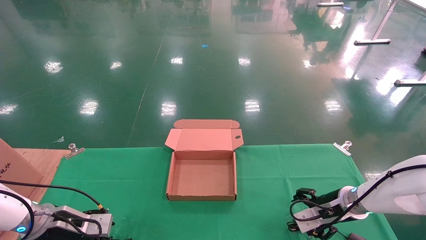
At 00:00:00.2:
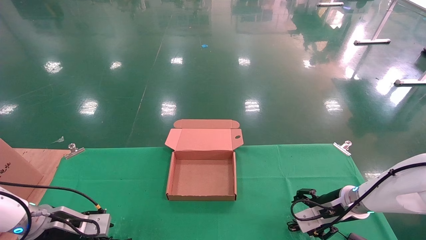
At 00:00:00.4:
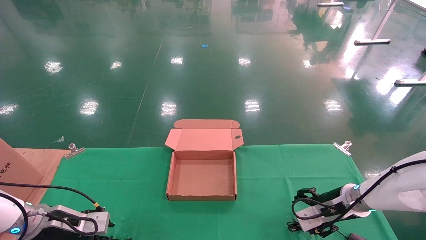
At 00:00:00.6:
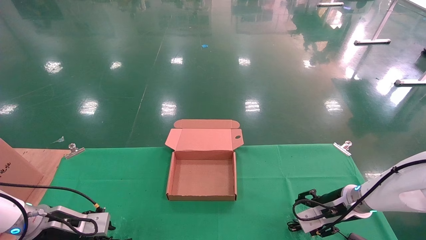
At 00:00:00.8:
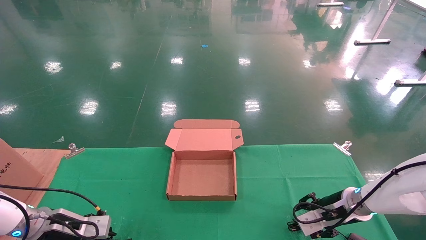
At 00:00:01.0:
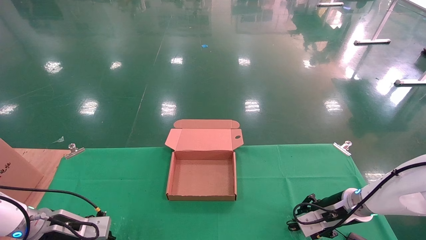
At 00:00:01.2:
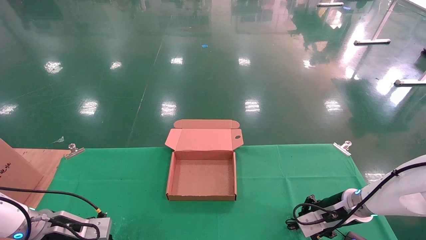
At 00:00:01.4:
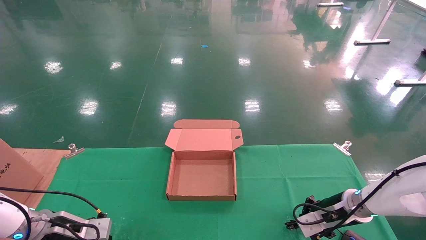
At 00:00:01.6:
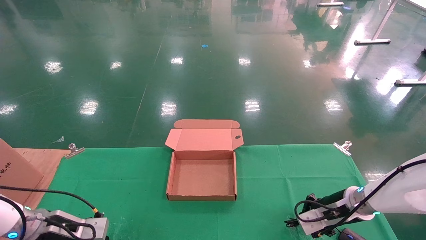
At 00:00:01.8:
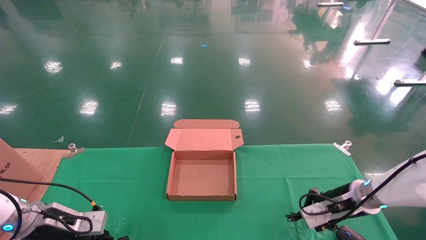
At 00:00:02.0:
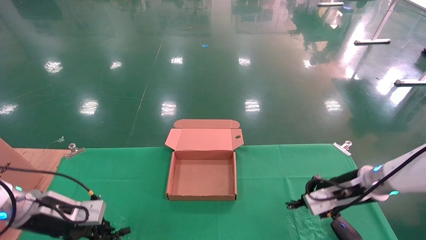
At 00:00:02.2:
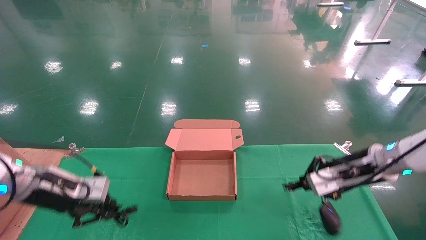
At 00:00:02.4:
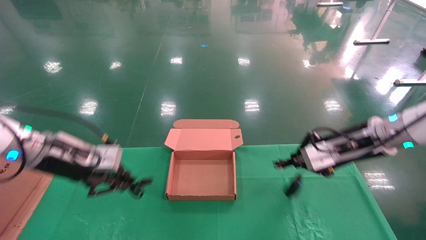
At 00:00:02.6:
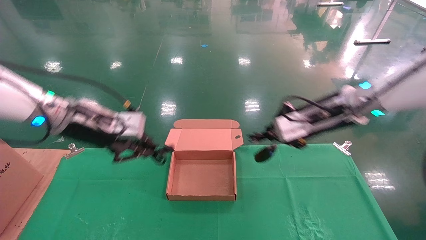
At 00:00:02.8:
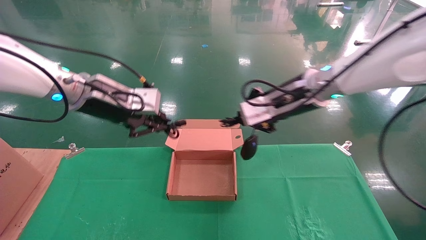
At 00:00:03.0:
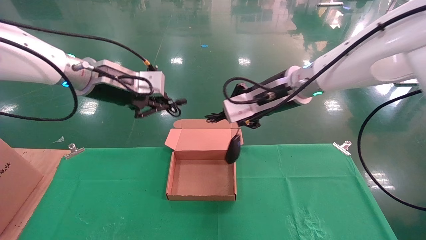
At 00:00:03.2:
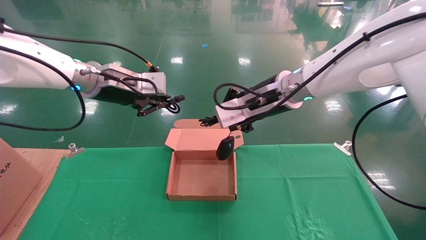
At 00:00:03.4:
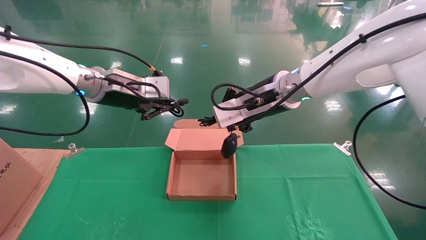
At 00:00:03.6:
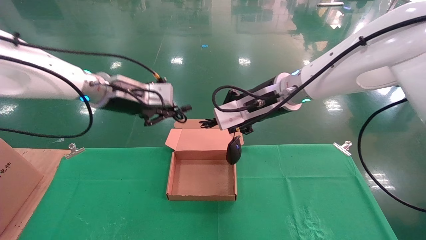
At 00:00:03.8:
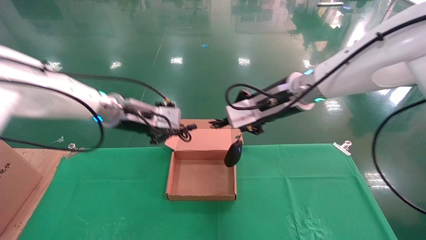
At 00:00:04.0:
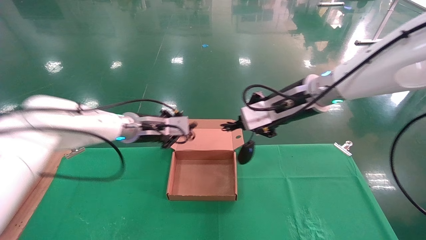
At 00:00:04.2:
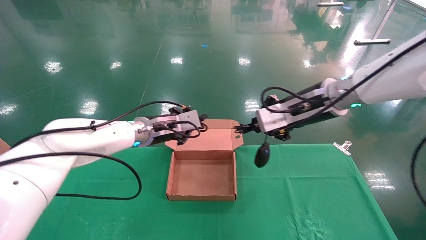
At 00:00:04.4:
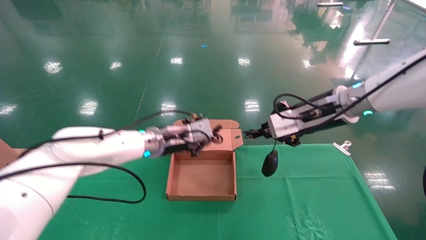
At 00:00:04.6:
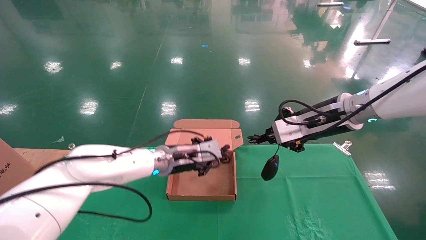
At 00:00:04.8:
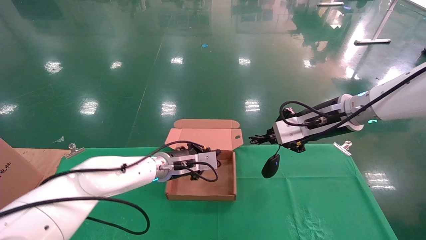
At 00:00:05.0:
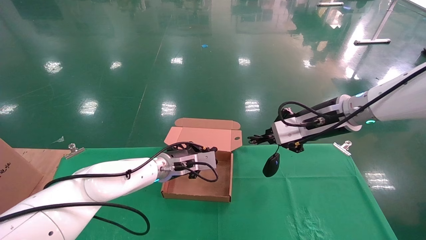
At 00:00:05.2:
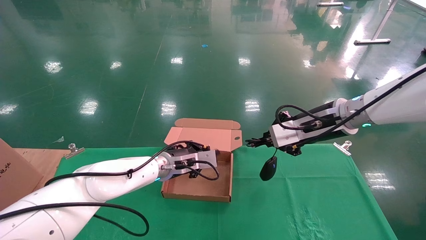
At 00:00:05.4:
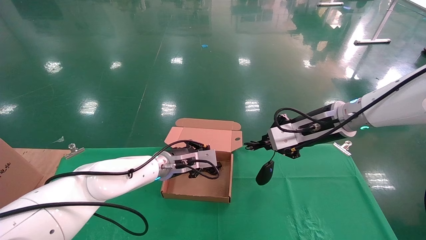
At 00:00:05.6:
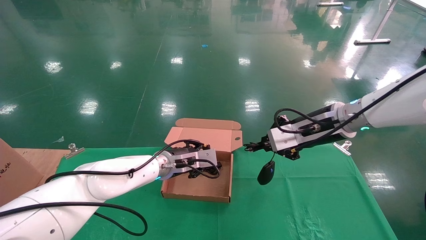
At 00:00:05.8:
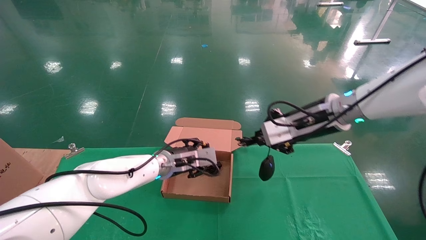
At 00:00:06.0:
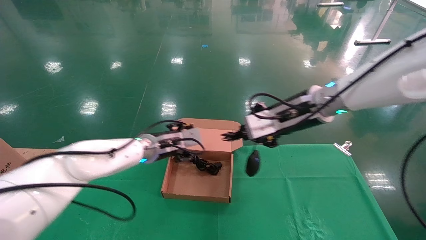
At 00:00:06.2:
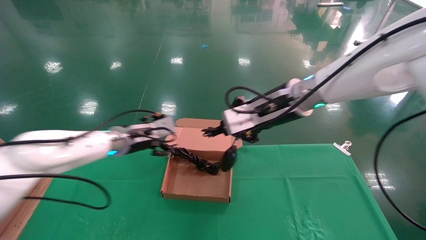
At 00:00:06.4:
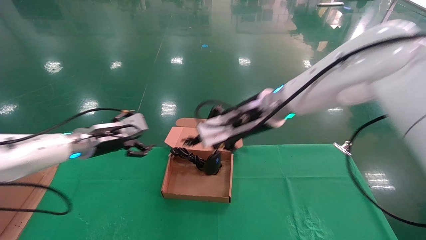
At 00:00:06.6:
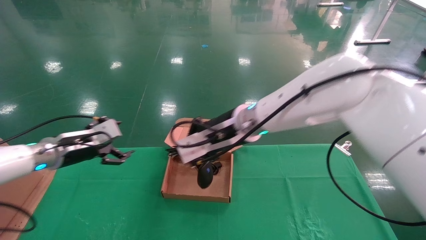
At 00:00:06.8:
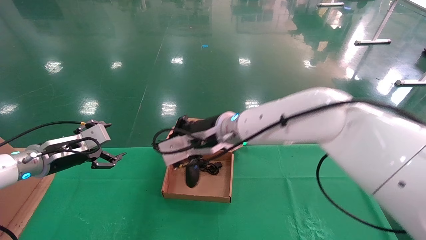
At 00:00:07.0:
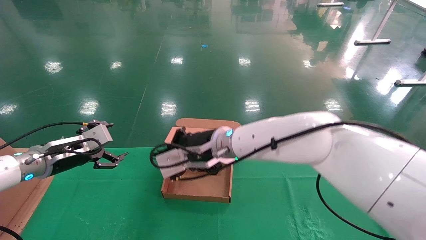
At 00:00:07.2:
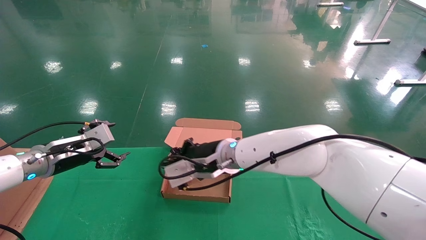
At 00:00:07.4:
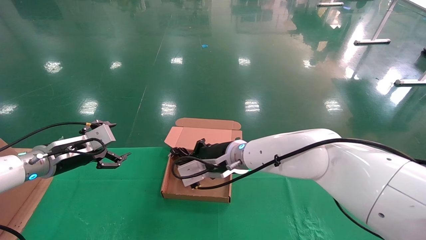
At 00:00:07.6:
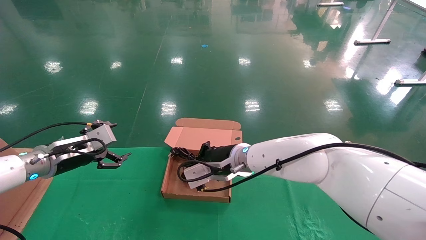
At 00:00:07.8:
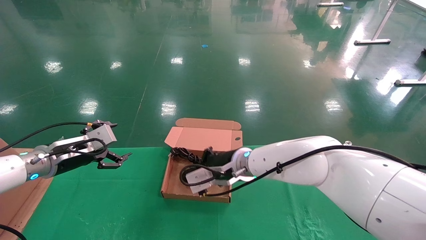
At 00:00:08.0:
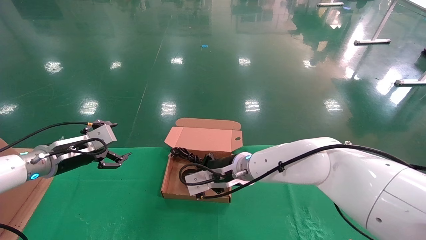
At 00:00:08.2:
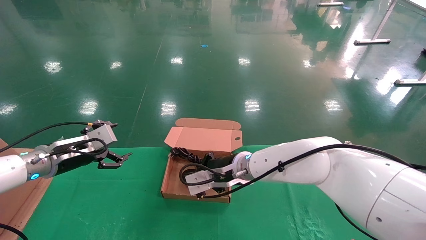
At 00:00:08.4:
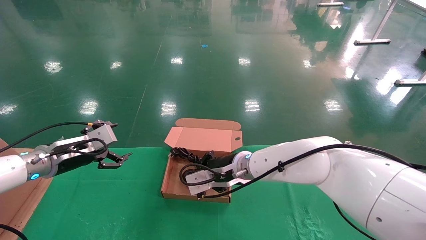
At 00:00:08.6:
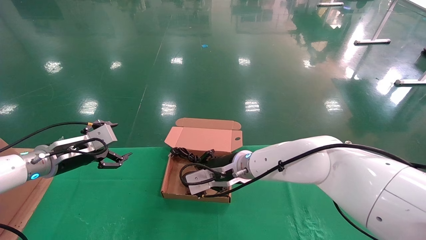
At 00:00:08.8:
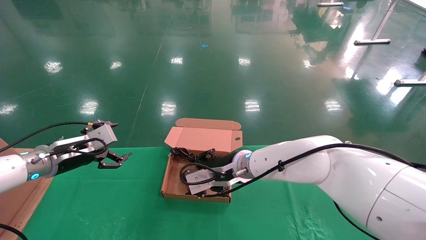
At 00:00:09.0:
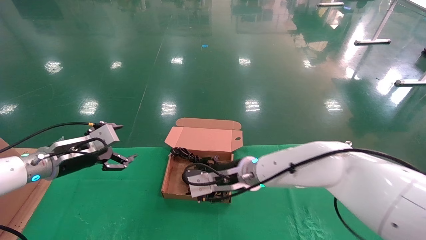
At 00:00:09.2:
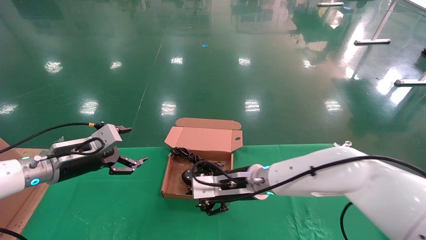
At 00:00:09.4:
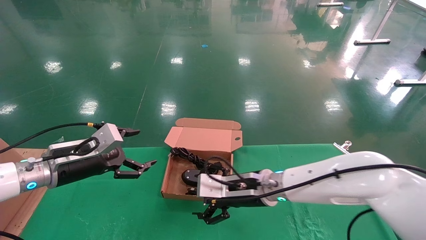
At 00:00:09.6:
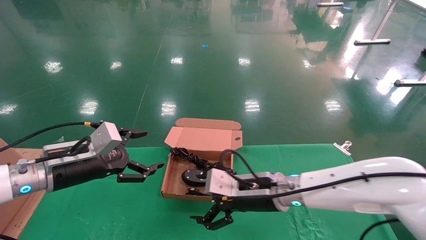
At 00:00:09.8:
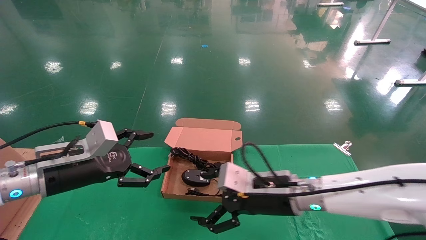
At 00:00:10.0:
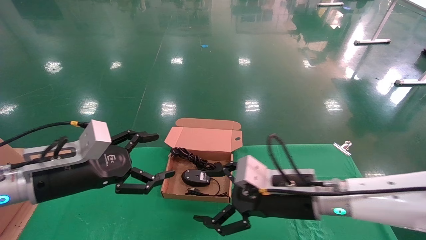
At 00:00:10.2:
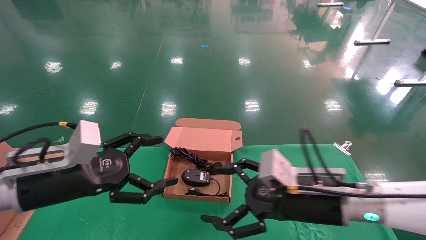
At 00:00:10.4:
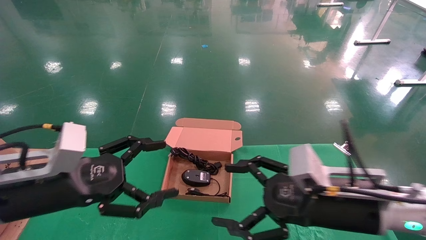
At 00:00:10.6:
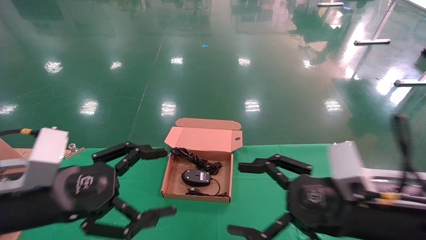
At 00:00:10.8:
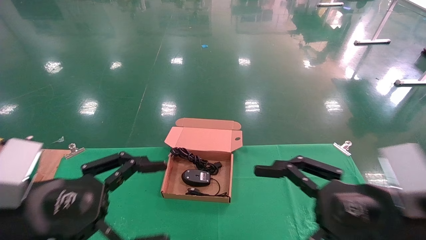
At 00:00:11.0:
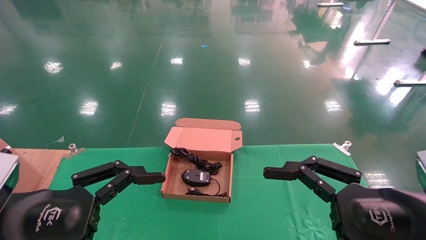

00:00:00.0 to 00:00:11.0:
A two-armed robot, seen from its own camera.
Step, 00:00:01.4 to 00:00:08.8: Place the mouse and power cord into the box.
00:00:00.0 to 00:00:01.6: The left gripper closes, while the right gripper closes.
00:00:01.6 to 00:00:03.2: The right gripper goes roughly 30 cm upward and to the left; the left gripper is displaced upward and to the right by some 30 cm.
00:00:03.2 to 00:00:04.8: The left gripper travels downward and to the right by approximately 25 cm; the right gripper is displaced to the right by approximately 10 cm.
00:00:04.8 to 00:00:06.2: The left gripper is displaced to the left and upward by approximately 10 cm, and opens its fingers, while the right gripper goes approximately 10 cm to the left.
00:00:06.2 to 00:00:07.8: The left gripper shifts about 15 cm to the left and backward; the right gripper goes approximately 15 cm downward and to the left.
00:00:07.8 to 00:00:09.4: The right gripper ends up roughly 10 cm from where it was, and opens its fingers. The left gripper changes place by roughly 5 cm.
00:00:09.4 to 00:00:11.0: The left gripper moves backward, some 20 cm, while the right gripper heads backward and to the right, covering roughly 25 cm.
